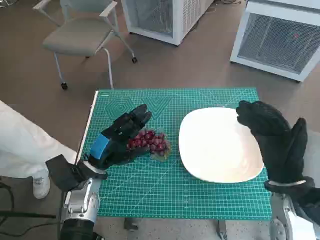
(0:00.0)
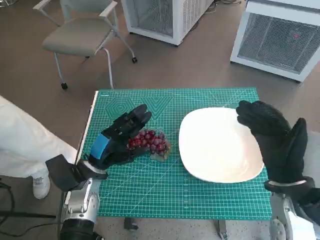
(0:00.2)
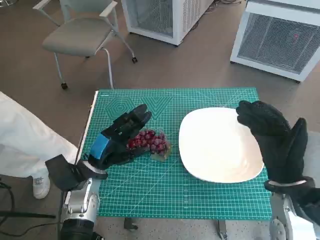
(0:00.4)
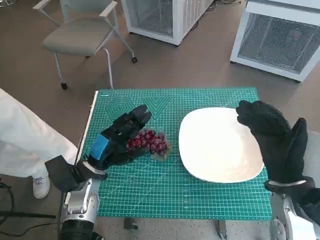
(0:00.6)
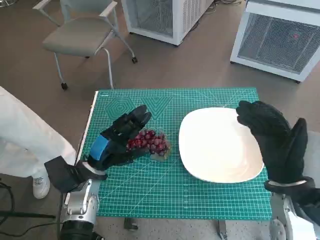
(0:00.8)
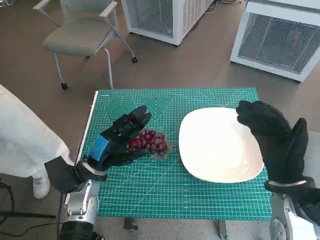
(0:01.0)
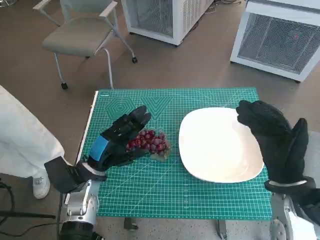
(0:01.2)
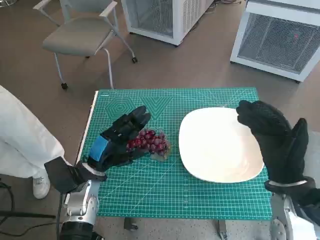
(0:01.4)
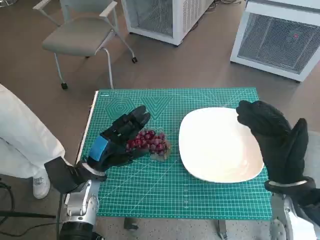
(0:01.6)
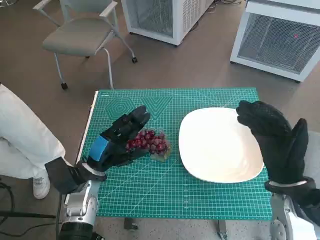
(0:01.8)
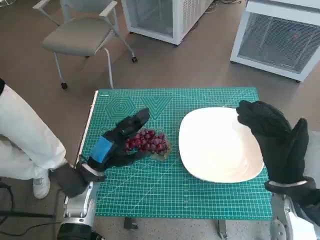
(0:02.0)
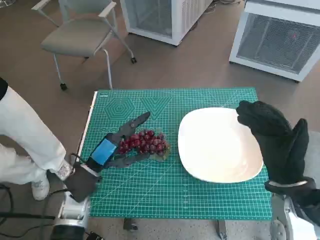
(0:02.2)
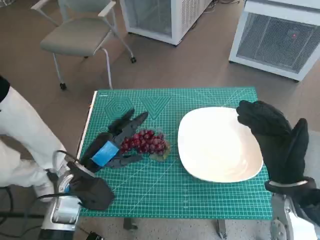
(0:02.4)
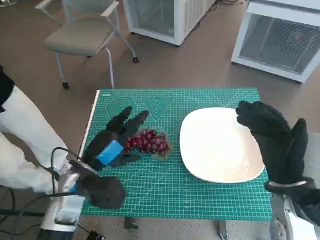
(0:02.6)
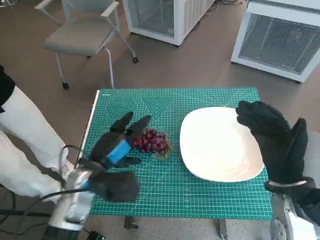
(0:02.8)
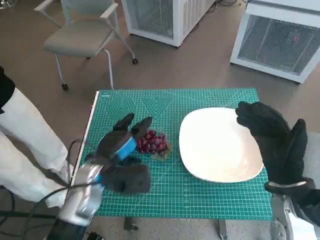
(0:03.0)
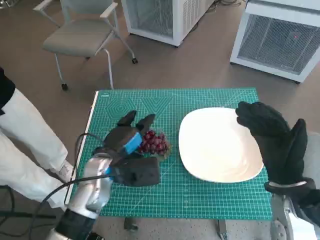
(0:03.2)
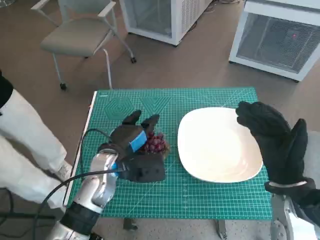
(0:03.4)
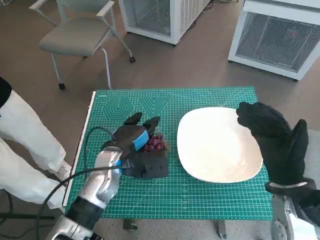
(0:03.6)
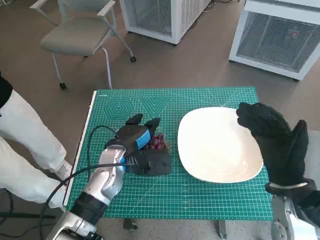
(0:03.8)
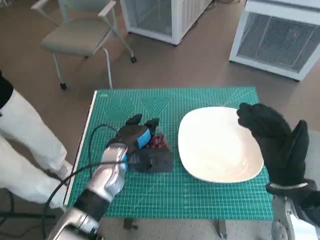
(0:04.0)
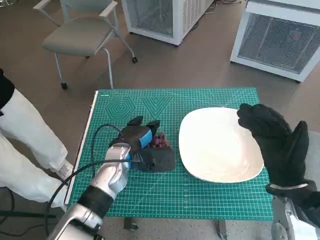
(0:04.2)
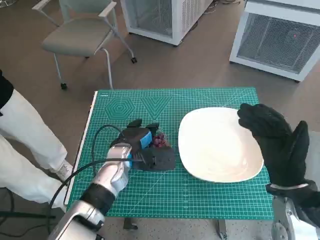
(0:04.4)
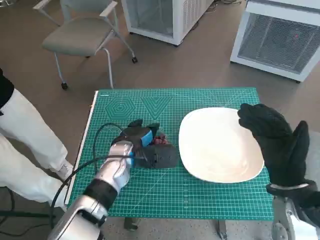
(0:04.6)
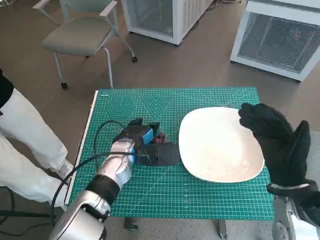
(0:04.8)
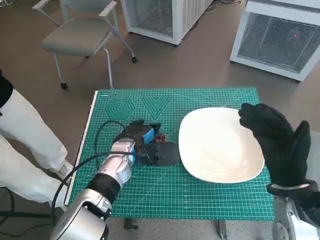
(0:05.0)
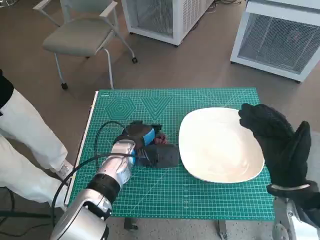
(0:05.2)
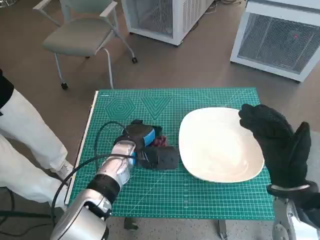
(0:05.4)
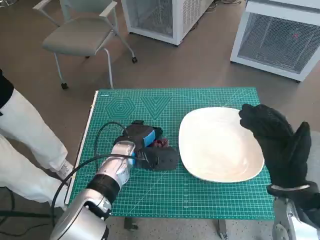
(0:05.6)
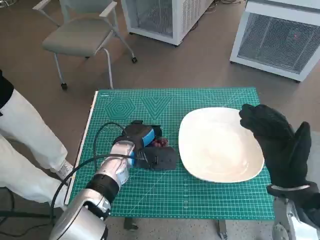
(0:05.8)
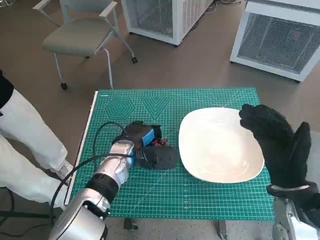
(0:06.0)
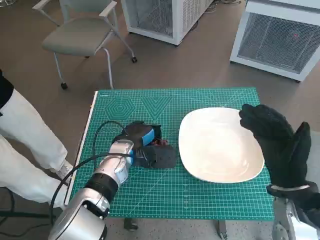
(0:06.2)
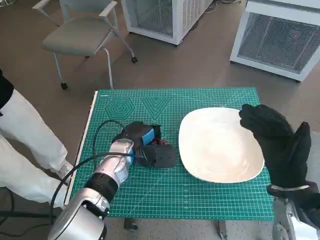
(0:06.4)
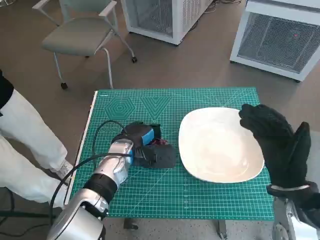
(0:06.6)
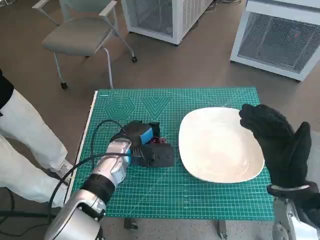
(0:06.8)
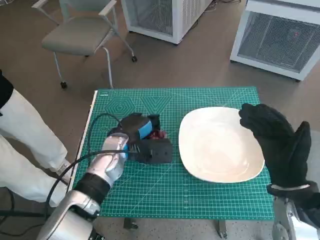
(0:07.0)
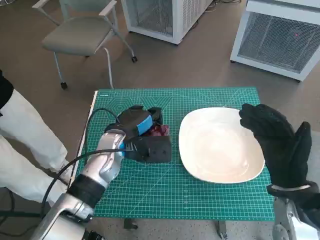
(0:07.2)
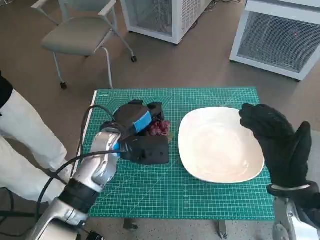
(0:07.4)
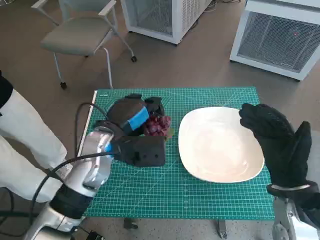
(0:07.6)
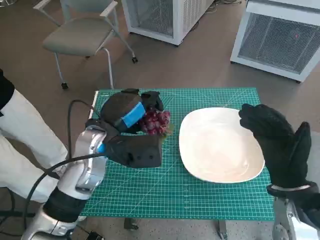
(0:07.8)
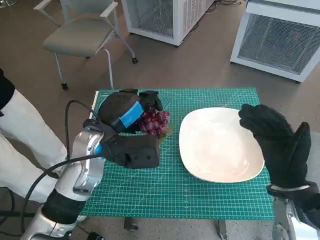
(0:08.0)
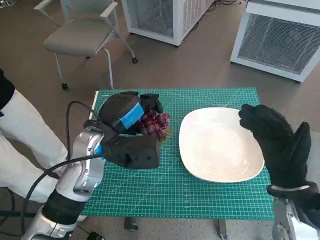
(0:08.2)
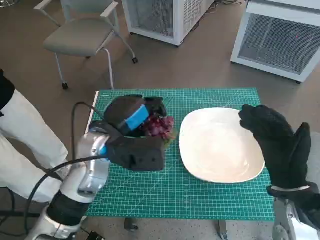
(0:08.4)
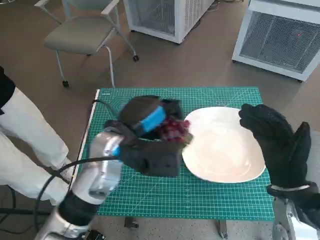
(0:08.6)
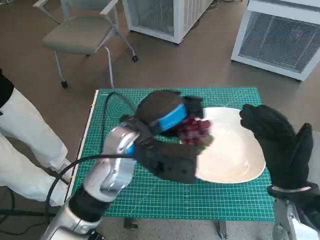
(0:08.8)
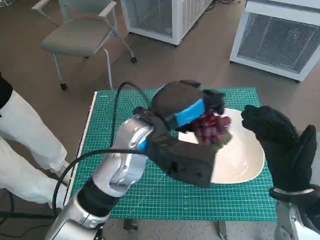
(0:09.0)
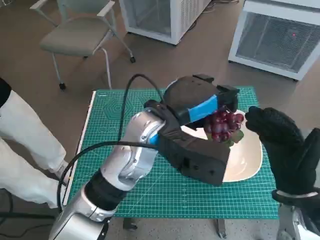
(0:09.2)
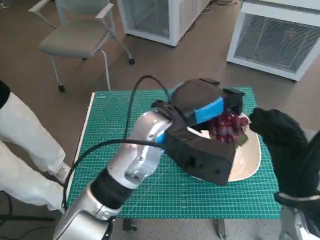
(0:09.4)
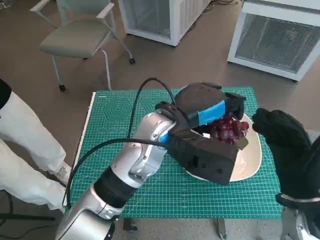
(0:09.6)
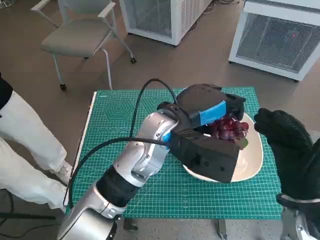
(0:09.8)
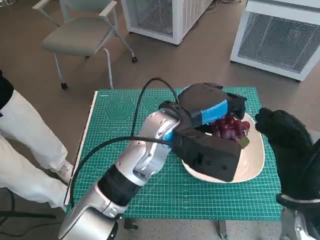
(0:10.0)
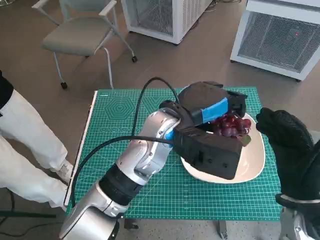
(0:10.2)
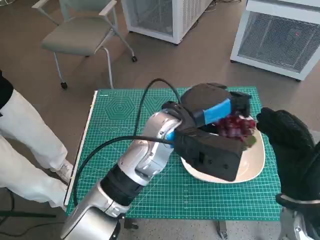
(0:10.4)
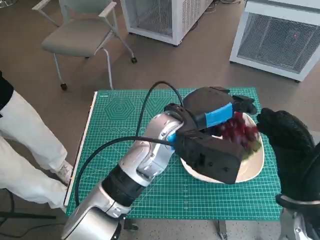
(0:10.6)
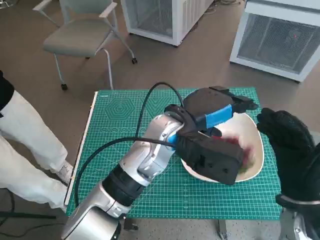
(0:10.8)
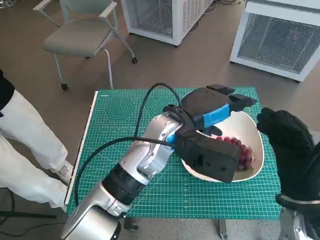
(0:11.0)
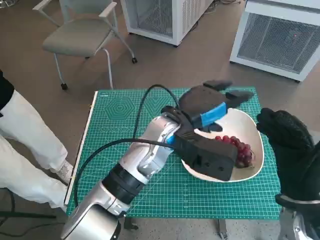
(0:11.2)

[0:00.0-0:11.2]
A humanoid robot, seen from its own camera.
Task of the whole recording: Pick up the grapes and put them on the plate.
Step, 0:00.0 to 0:06.4: Grasp the grapes with left hand.
Step, 0:06.6 to 0:10.8: Place the grapes in the plate with left hand.
0:01.6 to 0:03.2: The left hand shifts by about 5 cm.
0:03.2 to 0:04.8: The left hand shifts some 5 cm forward.
0:04.8 to 0:06.4: There are only small adjustments of the hands.
0:06.4 to 0:08.0: The left hand shifts about 10 cm upward.
0:08.0 to 0:09.6: The left hand shifts some 10 cm to the right.
0:09.6 to 0:11.2: There are only small adjustments of the hands.

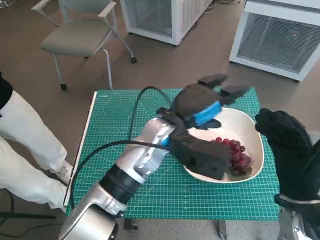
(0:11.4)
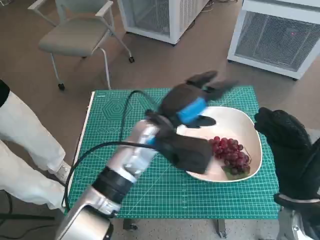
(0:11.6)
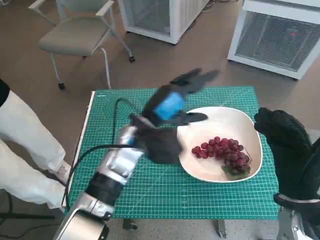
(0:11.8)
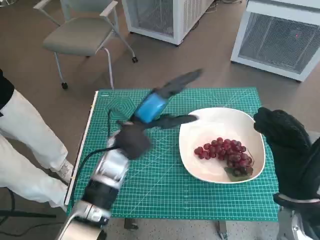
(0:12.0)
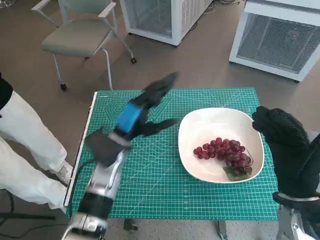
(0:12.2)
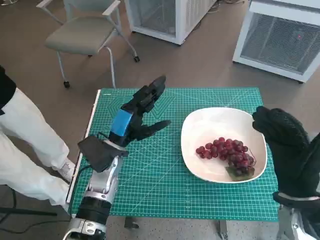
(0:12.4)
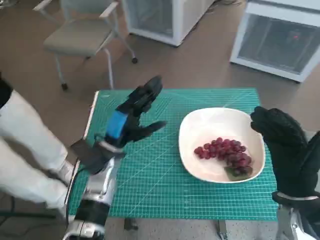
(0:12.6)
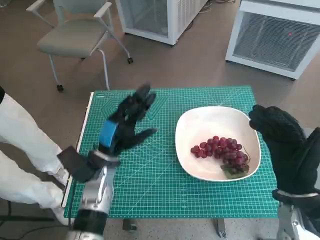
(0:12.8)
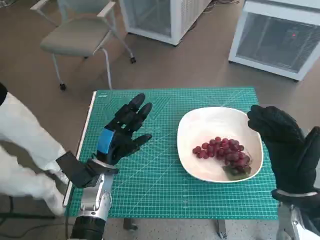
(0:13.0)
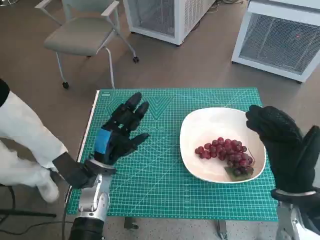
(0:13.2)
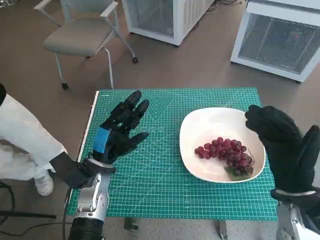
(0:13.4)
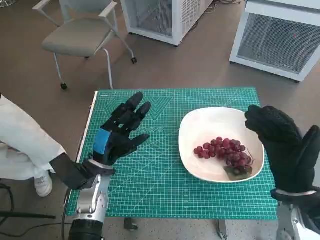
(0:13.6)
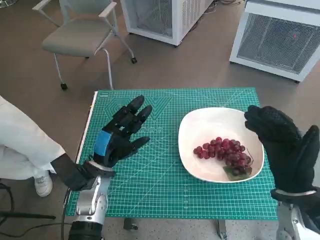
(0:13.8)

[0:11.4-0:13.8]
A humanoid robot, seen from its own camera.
Task of the whole recording: Pick up the grapes and put them on the plate.
0:11.4 to 0:12.6: The left hand goes approximately 15 cm to the left and downward.
0:12.6 to 0:13.8: The left hand shifts by about 5 cm.

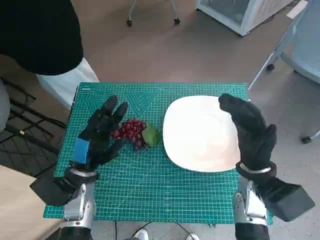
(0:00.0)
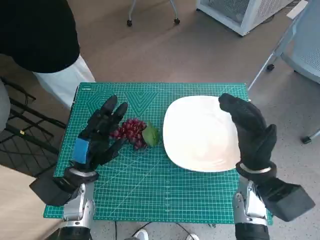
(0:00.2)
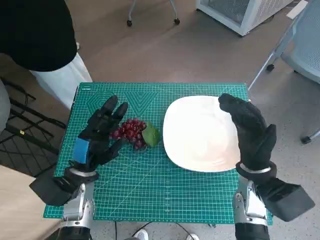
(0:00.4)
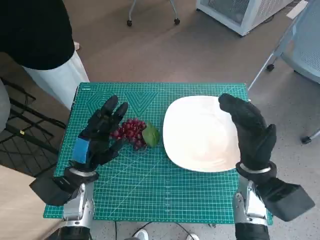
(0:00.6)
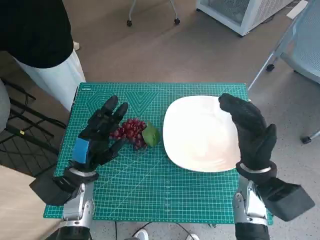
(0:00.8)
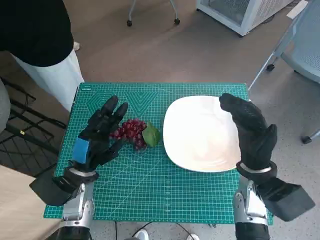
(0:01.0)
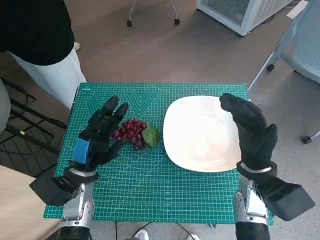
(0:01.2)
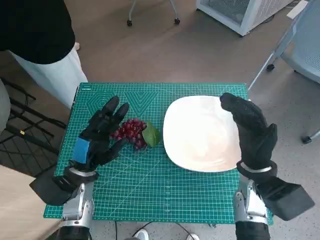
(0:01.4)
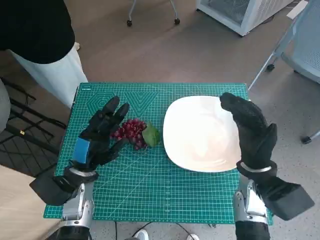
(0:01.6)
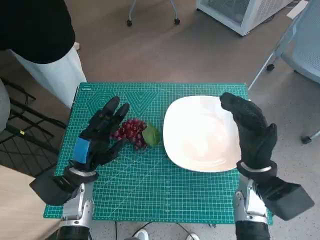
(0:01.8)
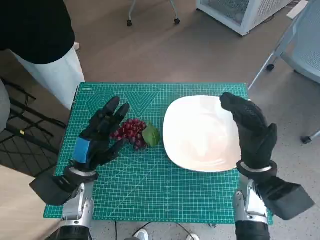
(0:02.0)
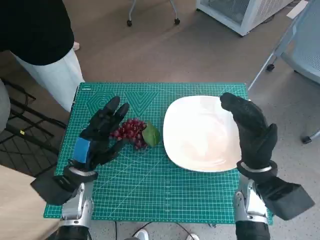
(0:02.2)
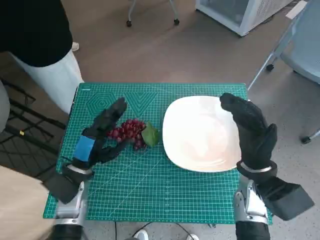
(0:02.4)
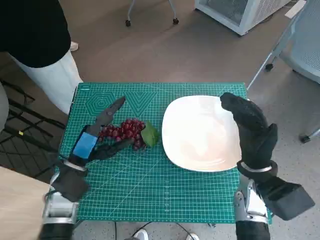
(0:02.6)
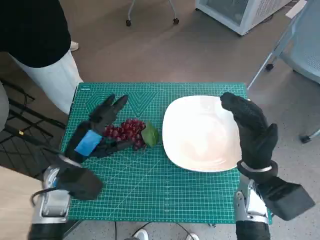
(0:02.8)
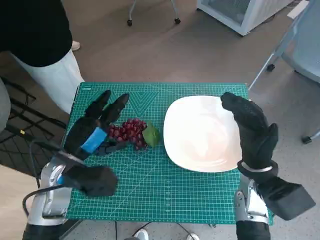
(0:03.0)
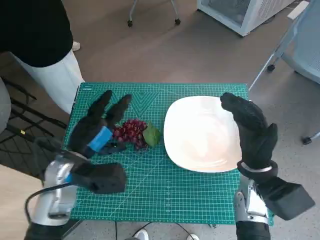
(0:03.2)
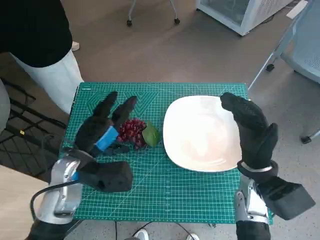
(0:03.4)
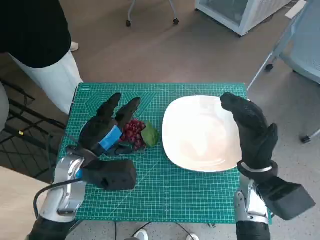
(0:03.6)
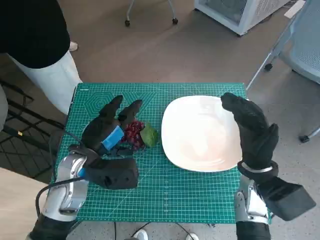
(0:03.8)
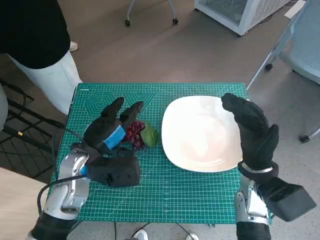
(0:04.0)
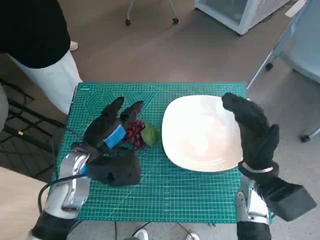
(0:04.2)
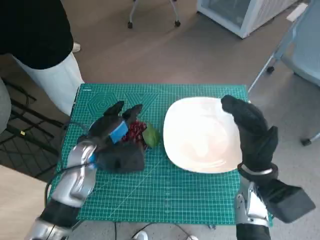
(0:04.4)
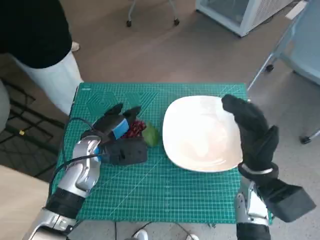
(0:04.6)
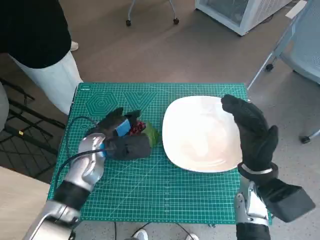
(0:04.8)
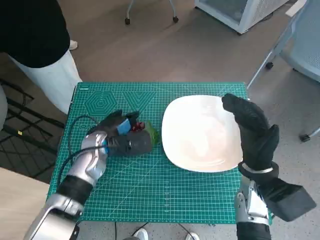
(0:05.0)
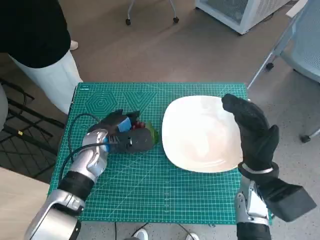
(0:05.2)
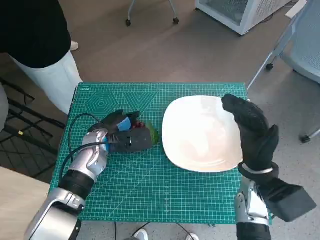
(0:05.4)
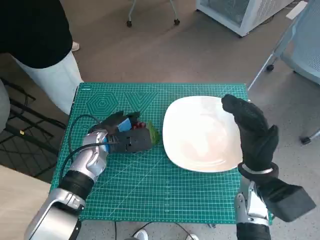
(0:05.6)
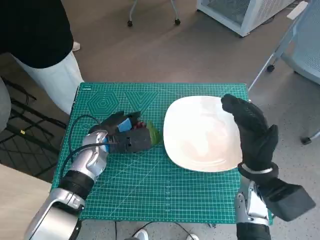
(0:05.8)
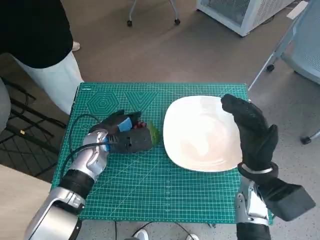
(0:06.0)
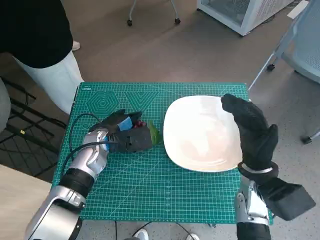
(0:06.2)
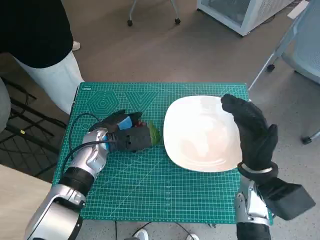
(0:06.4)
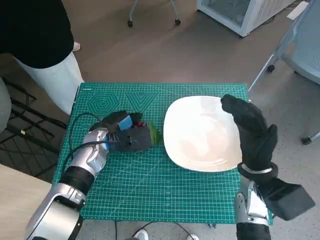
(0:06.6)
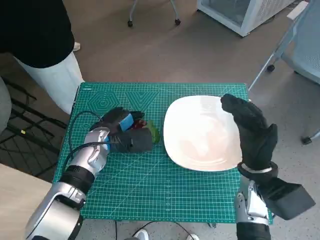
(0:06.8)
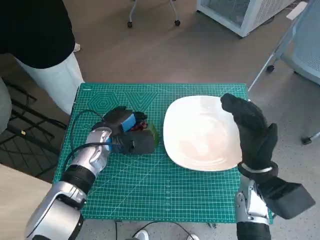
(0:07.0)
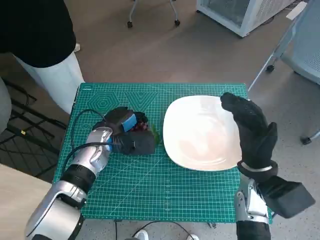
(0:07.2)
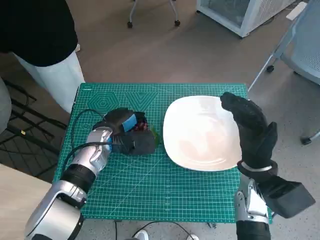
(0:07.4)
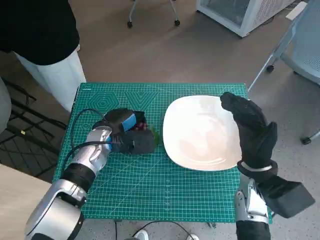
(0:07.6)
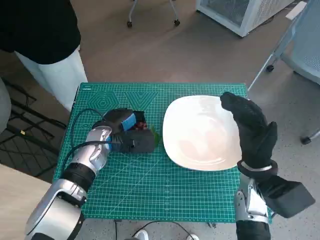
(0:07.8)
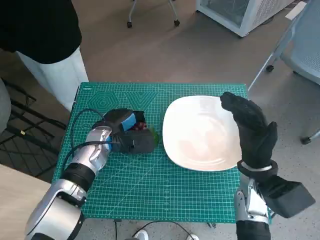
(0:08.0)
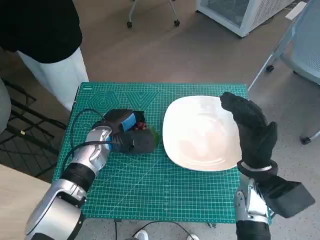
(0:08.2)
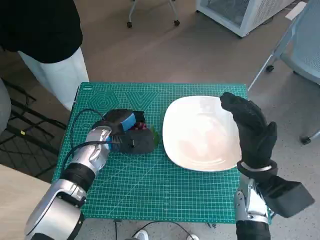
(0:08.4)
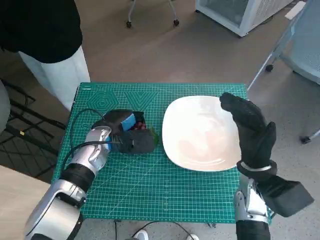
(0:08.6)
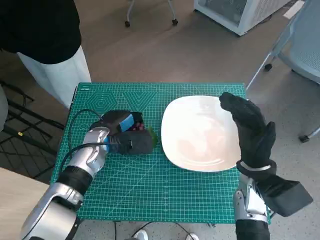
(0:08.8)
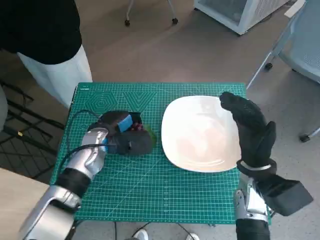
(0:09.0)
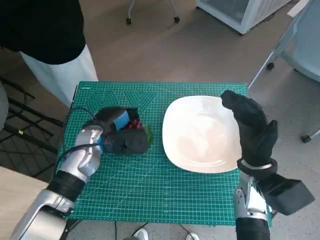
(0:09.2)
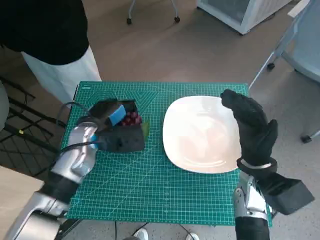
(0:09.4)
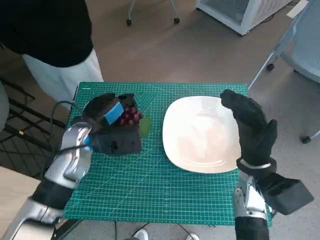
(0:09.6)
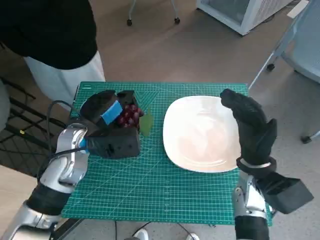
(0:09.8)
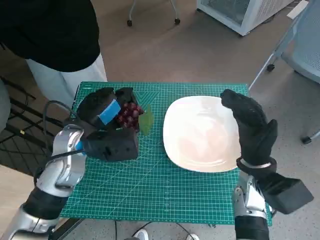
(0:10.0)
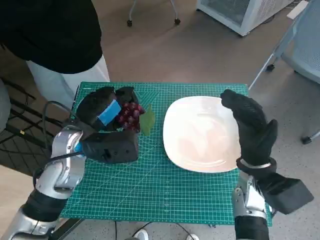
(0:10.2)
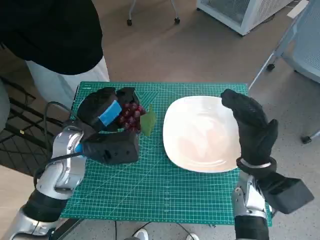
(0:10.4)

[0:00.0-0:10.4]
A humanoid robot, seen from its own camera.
Task of the whole recording: Pick up the grapes and put them on the plate.
Step, 0:00.0 to 0:05.6: Grasp the grapes with left hand.
0:01.4 to 0:03.0: The left hand is displaced upward by some 5 cm.
0:03.0 to 0:04.4: The left hand moves roughly 5 cm.
0:04.4 to 0:06.0: The left hand moves forward, approximately 5 cm.
0:06.0 to 0:07.4: There are only small adjustments of the hands.
0:07.4 to 0:09.0: Both hands stay put.
0:09.0 to 0:10.4: The left hand is displaced upward by about 10 cm.
